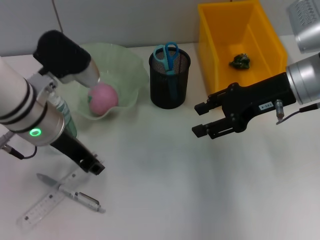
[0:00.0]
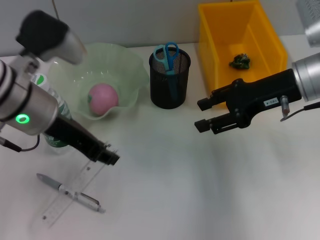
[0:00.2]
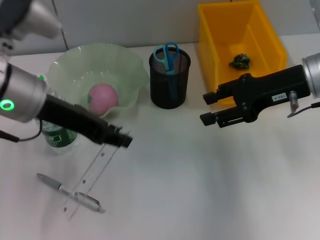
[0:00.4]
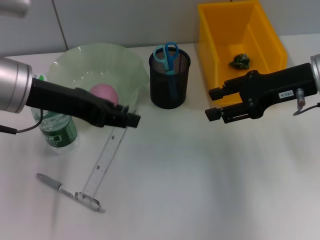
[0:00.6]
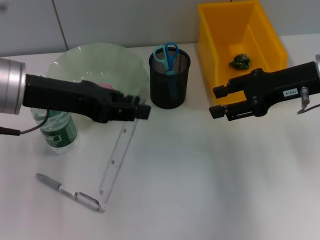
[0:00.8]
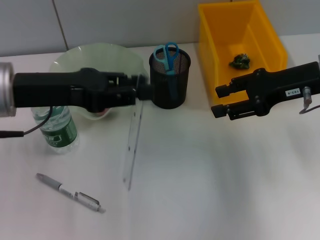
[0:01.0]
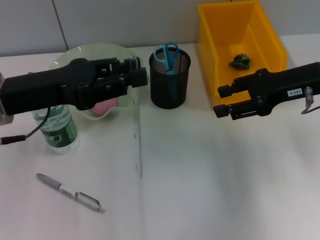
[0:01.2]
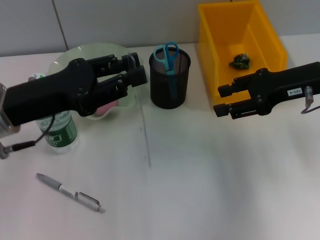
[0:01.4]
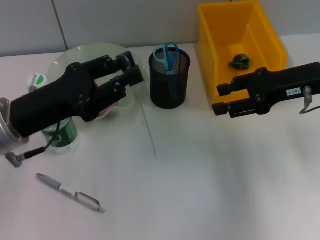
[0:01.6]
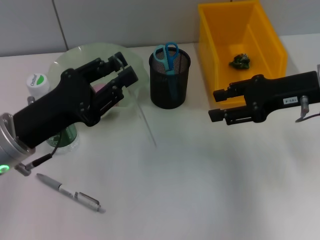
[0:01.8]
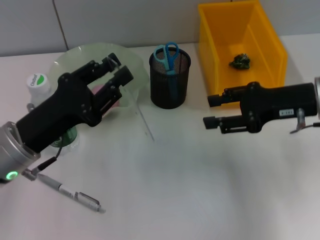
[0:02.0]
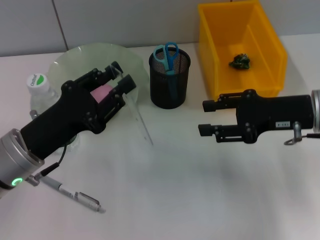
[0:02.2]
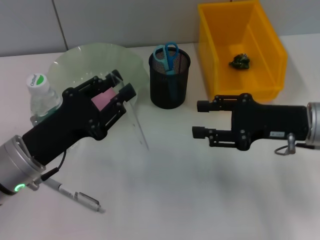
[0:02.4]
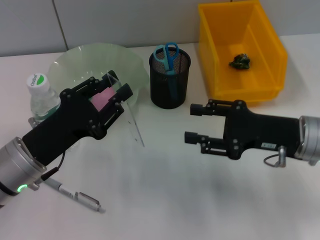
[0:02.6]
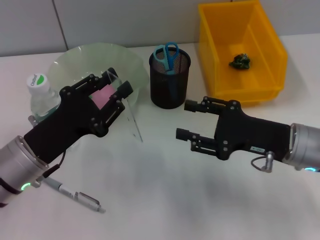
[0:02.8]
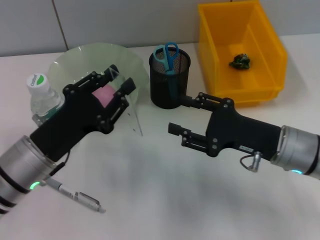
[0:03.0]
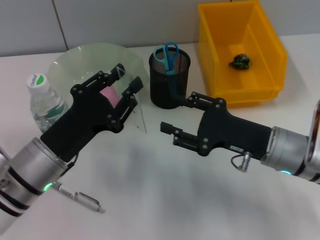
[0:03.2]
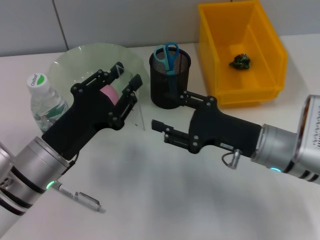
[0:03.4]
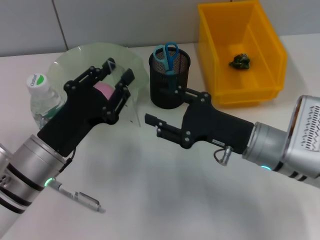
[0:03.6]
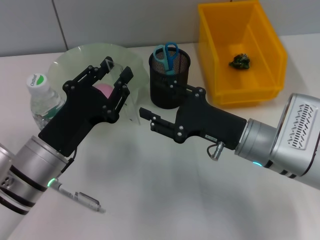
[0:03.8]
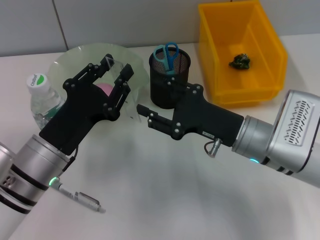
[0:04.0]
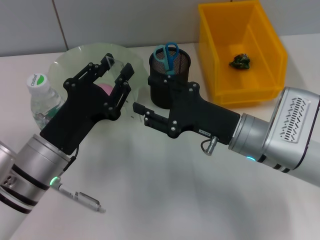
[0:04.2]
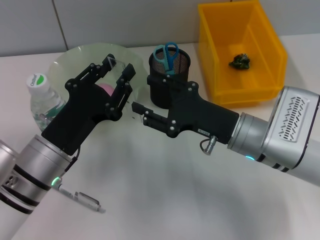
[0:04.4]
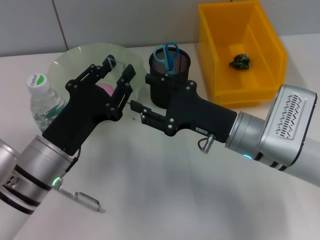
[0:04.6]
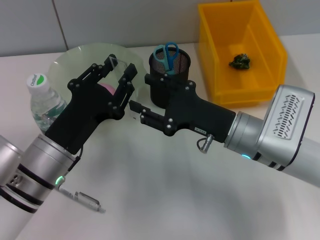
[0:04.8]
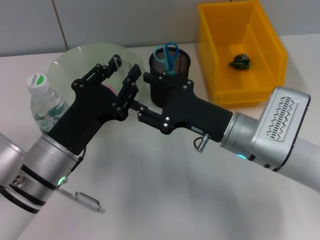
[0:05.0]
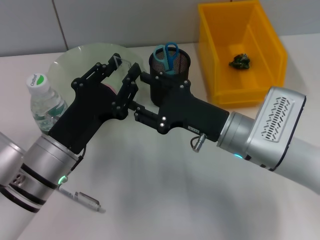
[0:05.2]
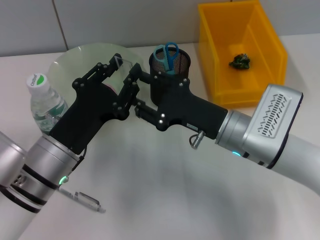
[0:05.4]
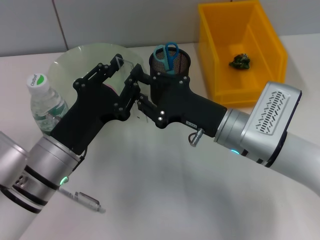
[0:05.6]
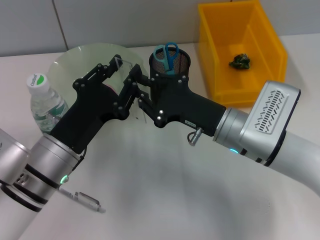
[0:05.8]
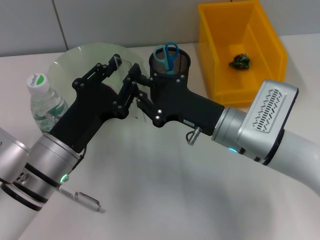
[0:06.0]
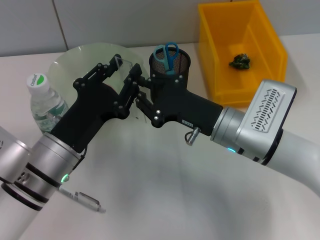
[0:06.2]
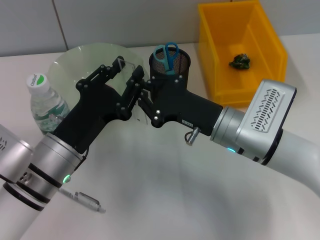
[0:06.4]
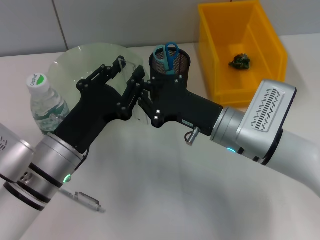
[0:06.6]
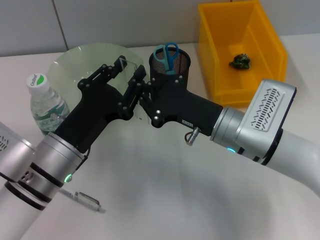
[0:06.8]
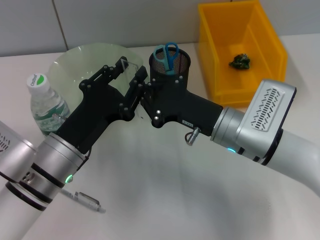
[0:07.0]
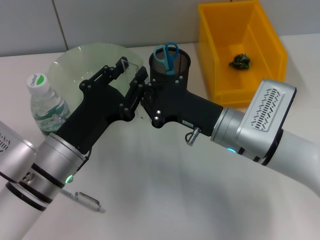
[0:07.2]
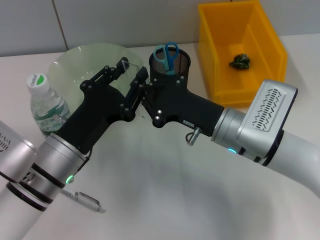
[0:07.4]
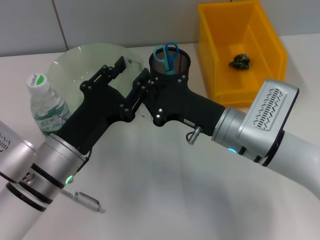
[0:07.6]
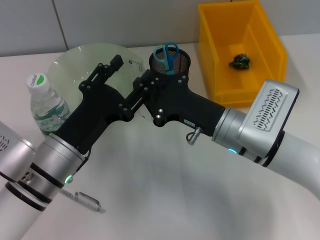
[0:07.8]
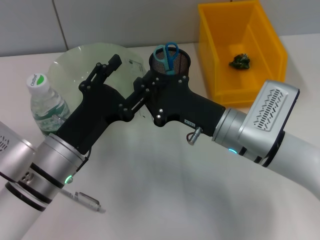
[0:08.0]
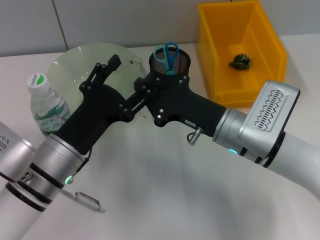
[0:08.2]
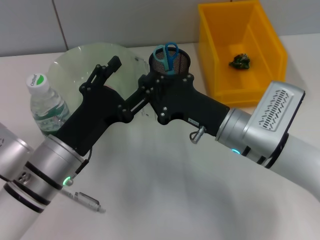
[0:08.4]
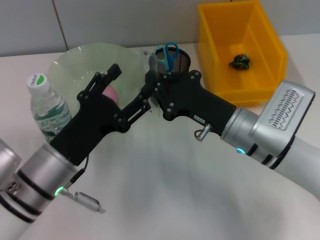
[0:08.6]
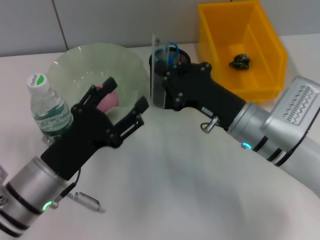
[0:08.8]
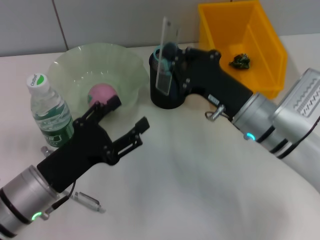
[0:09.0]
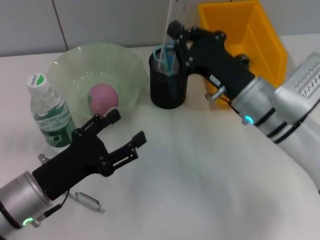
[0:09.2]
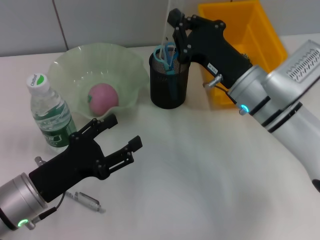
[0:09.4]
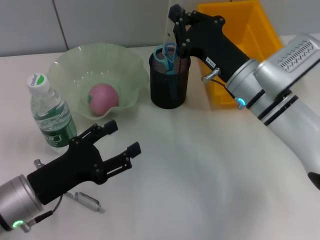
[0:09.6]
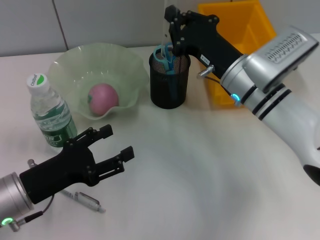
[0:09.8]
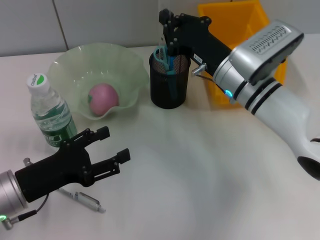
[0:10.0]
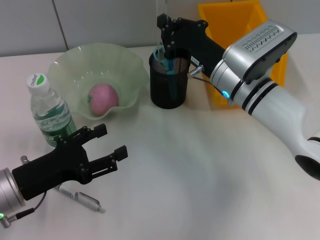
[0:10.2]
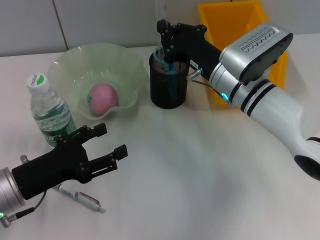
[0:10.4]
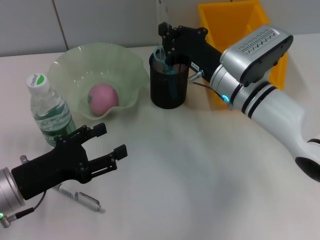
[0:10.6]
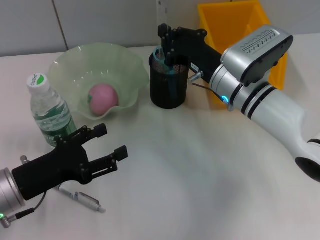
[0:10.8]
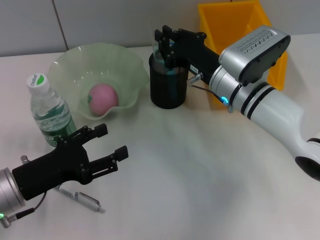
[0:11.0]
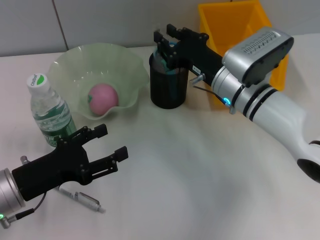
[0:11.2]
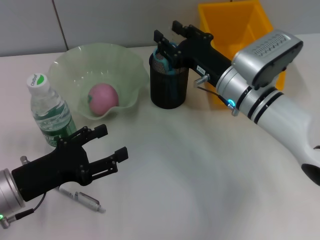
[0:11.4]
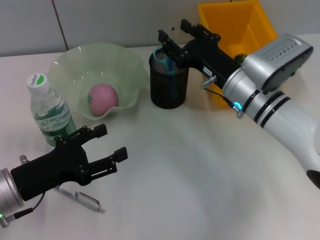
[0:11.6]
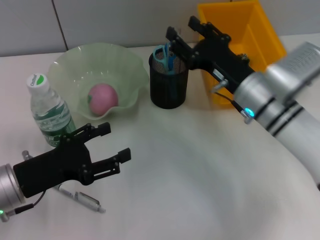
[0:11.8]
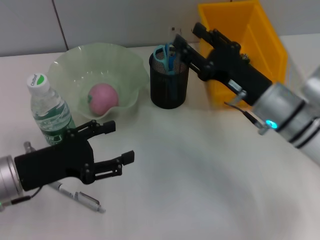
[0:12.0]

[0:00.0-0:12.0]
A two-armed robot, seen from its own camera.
Step, 0:00.0 to 0:07.8: Pass the ruler from the left hand to the right hand.
Step, 0:08.0 to 0:11.4: Place the ruler into the pen holder with the right hand.
0:00.0 to 0:01.6: The left gripper moves to the left, roughly 5 cm, and travels upward and back again, some 5 cm each way.
0:01.6 to 0:03.0: The left gripper travels downward by about 5 cm. The right gripper is displaced downward, backward and to the left by some 15 cm.
0:03.0 to 0:04.4: The right gripper moves to the left, some 5 cm.
0:04.4 to 0:06.0: The right gripper closes its fingers.
0:06.0 to 0:07.6: The two grippers keep their place.
0:07.6 to 0:09.0: The left gripper moves about 5 cm, and opens its fingers.
0:09.0 to 0:10.4: The right gripper moves forward, some 5 cm; the left gripper ends up some 5 cm from where it was.
0:10.4 to 0:12.0: The right gripper moves backward and to the right, about 10 cm, and opens up.

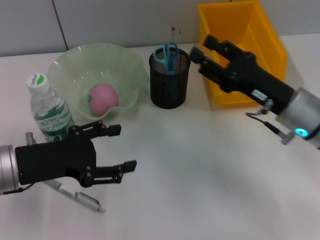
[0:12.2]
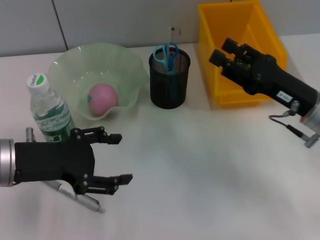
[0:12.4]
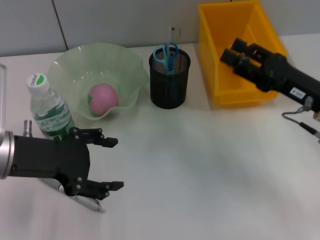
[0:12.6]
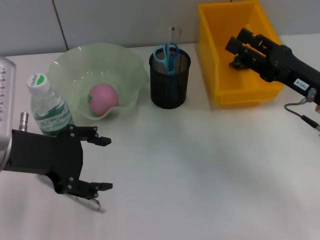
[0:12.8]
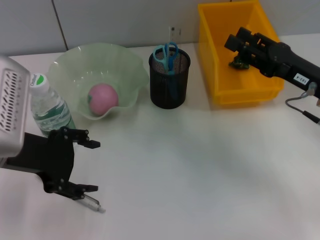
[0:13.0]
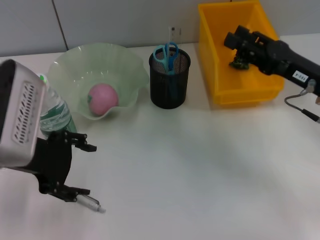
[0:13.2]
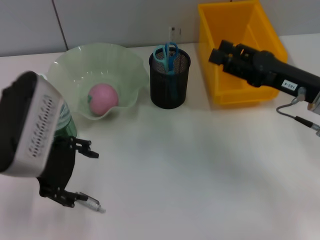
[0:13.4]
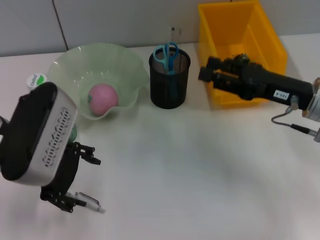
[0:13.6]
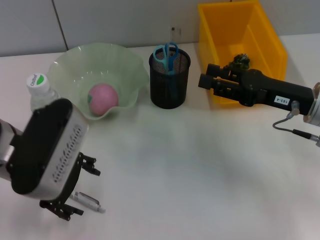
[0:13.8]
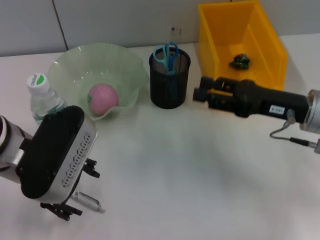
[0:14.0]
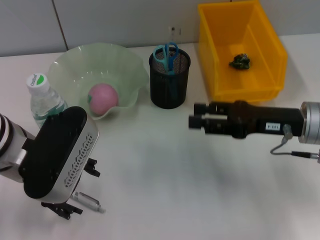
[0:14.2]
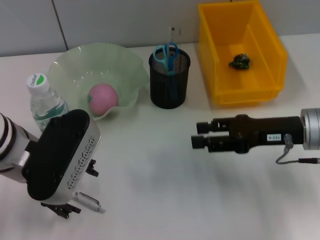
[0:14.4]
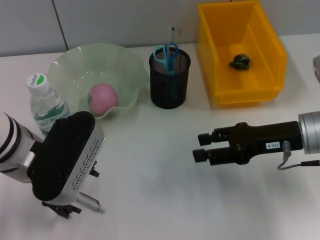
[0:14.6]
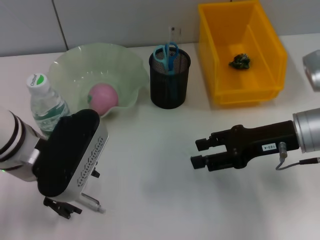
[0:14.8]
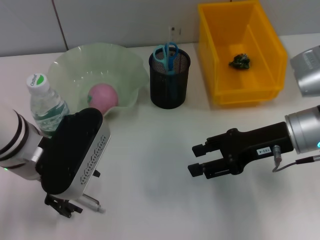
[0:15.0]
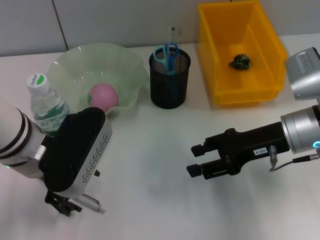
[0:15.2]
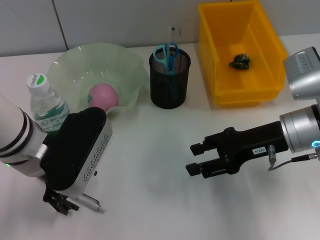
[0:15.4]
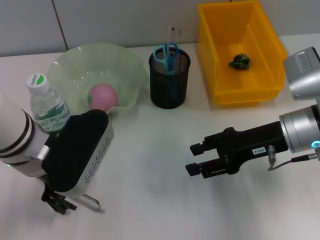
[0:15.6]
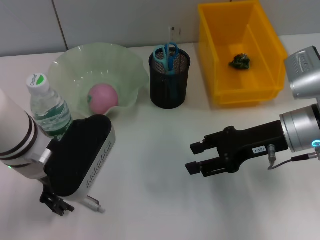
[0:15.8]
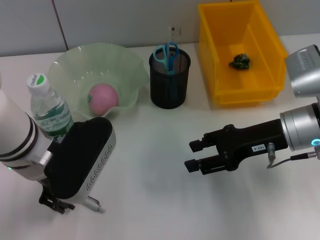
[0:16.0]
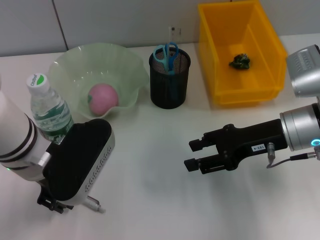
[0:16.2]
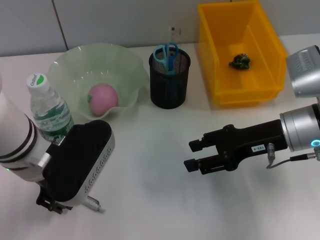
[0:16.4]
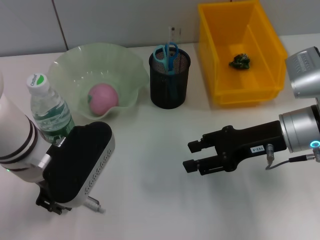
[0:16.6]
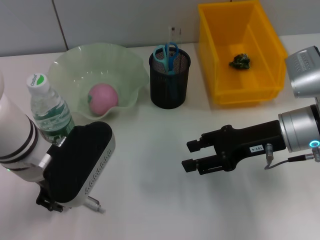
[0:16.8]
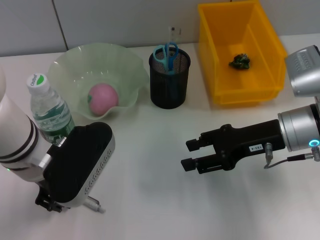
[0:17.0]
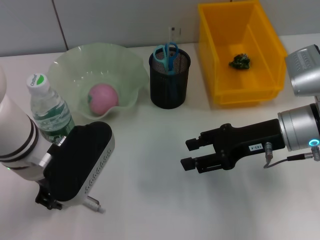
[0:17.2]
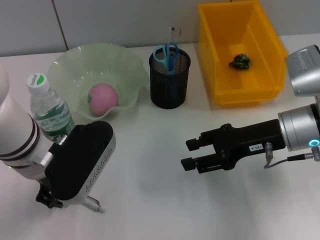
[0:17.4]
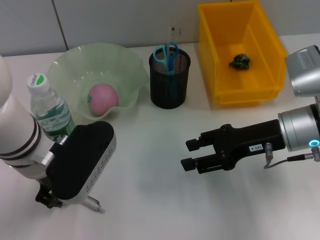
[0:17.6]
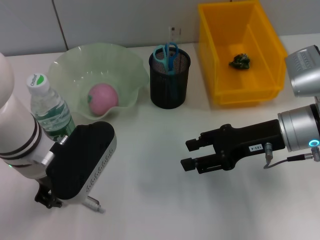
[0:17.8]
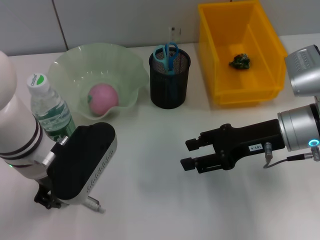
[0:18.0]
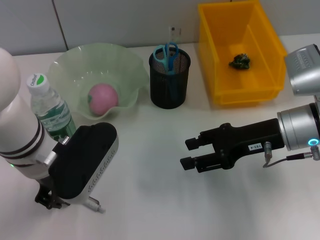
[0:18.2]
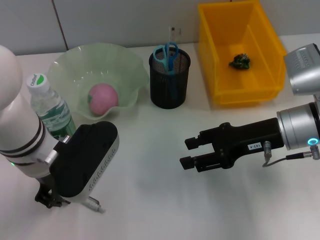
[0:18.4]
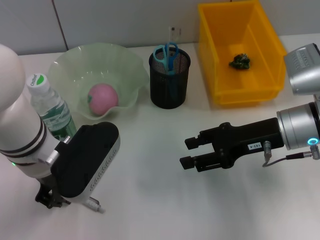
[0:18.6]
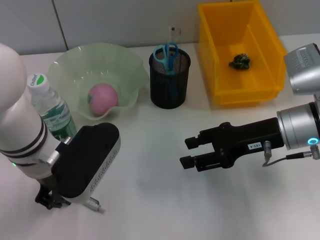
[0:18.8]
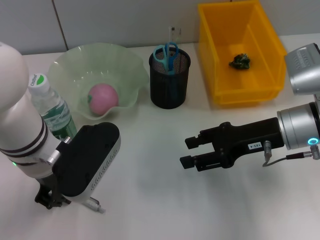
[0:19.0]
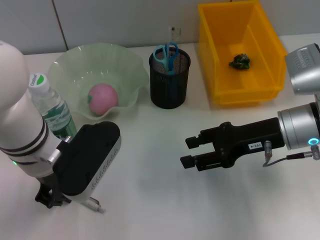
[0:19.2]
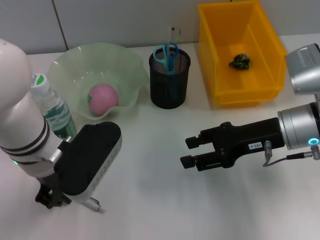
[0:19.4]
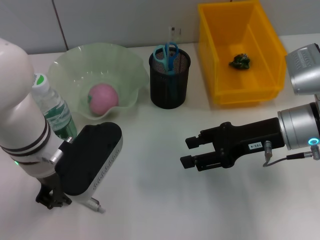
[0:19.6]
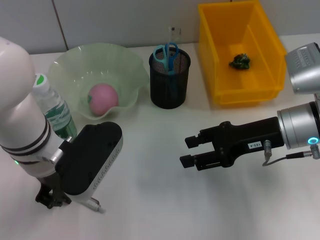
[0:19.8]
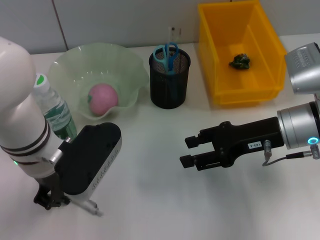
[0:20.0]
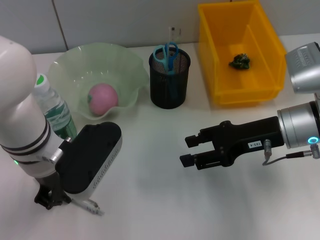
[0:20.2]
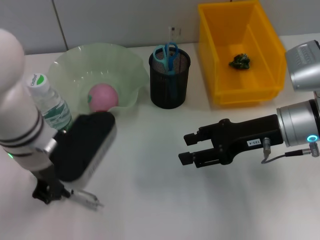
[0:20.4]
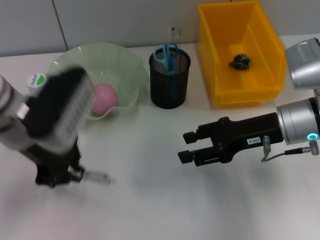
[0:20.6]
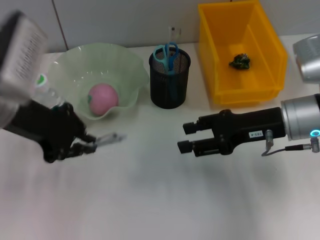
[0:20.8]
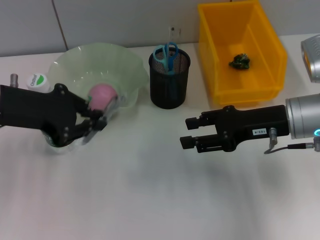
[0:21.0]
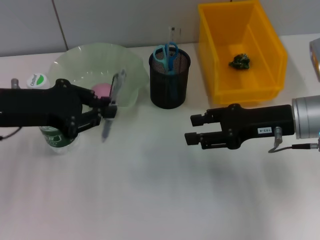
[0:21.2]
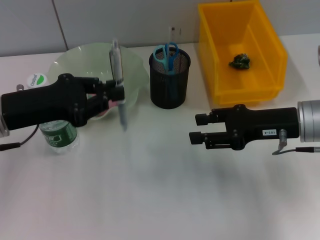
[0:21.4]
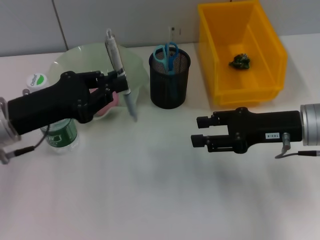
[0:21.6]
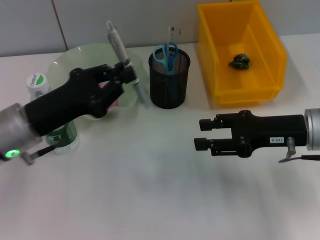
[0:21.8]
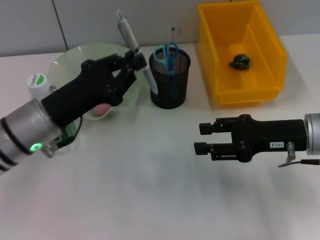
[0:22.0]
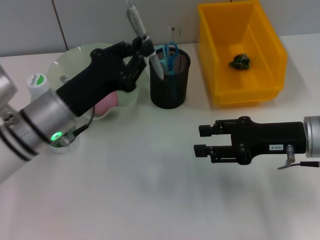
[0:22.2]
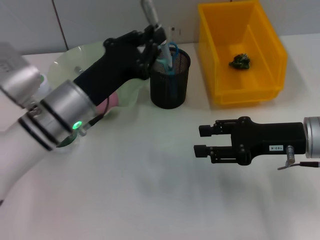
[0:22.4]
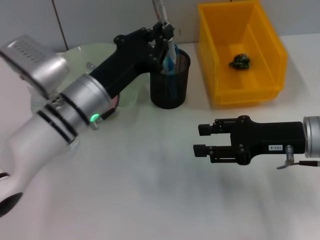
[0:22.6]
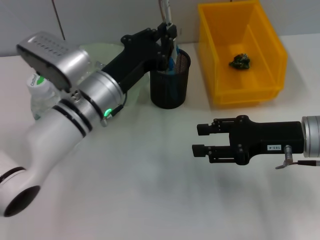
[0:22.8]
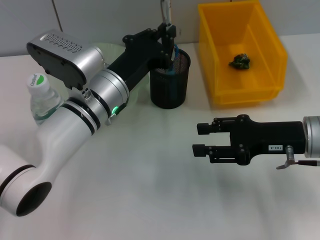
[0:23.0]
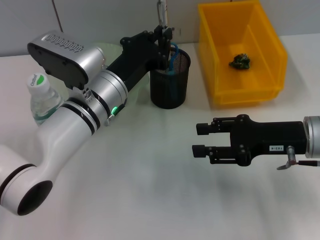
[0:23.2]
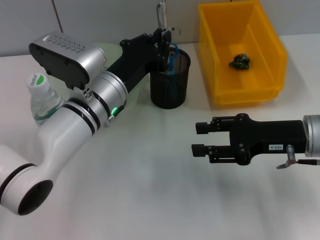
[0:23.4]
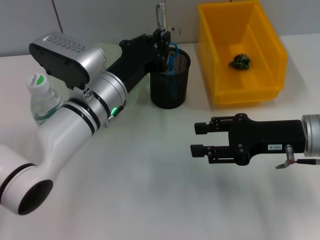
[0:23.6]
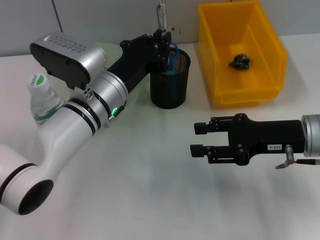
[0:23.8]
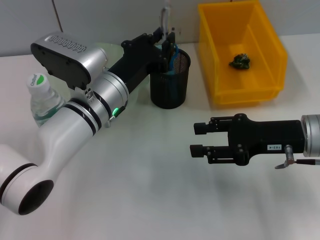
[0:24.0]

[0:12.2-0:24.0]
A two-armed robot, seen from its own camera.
Step, 0:12.2 to 0:20.0: Grab the gray spring-action pen with the left hand.
0:12.2 to 0:13.6: The left gripper goes about 5 cm upward.
0:15.2 to 0:16.6: The grippers stay close to where they were, moving slightly.
0:16.6 to 0:18.2: Both grippers stay put.
0:18.2 to 0:19.6: The two grippers keep their place.
0:19.6 to 0:21.0: The left gripper travels to the left and upward by some 10 cm.
0:21.0 to 0:22.6: The left gripper is displaced to the right and downward by roughly 15 cm.
0:22.6 to 0:24.0: The grippers move only a little.
